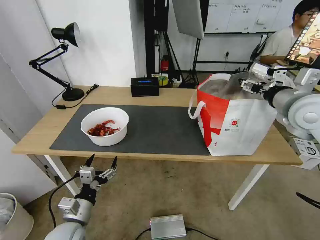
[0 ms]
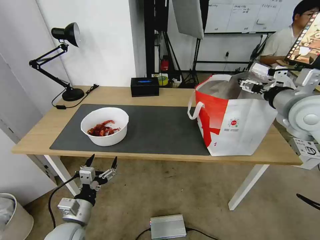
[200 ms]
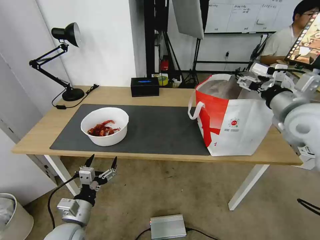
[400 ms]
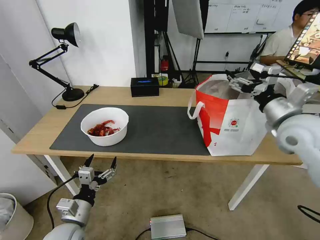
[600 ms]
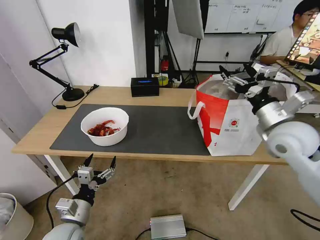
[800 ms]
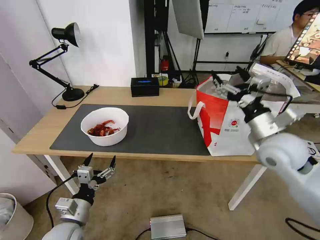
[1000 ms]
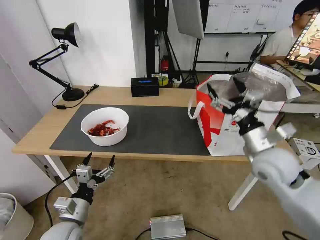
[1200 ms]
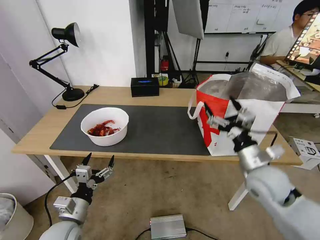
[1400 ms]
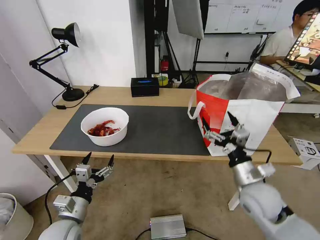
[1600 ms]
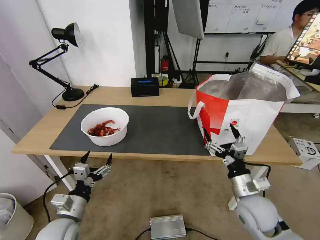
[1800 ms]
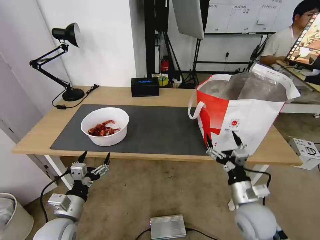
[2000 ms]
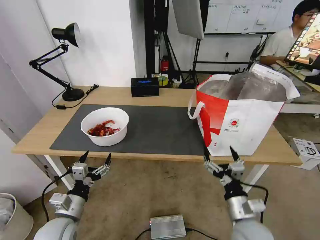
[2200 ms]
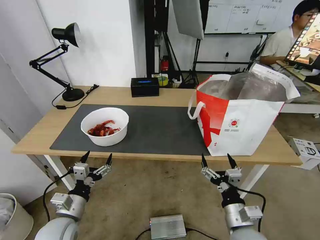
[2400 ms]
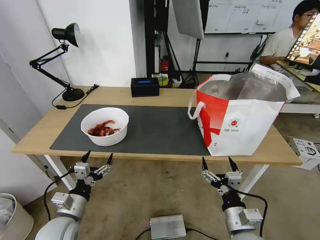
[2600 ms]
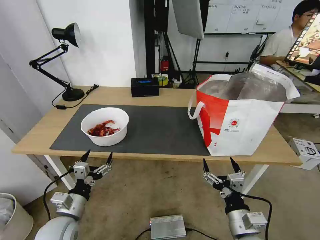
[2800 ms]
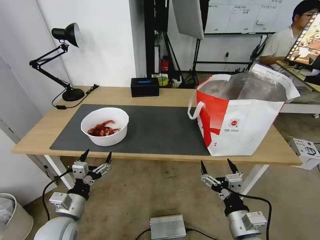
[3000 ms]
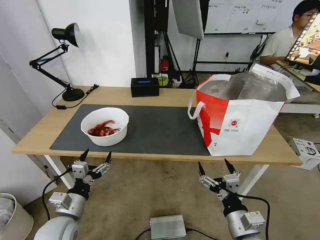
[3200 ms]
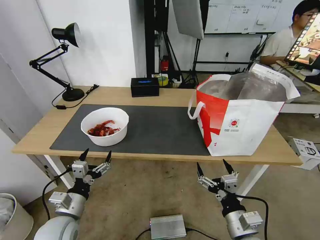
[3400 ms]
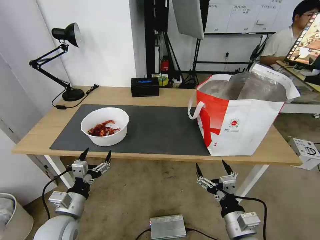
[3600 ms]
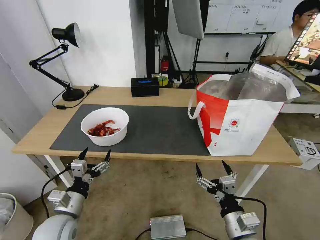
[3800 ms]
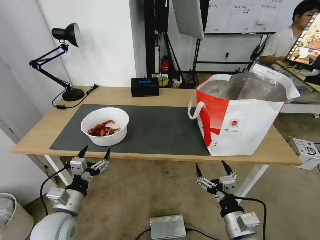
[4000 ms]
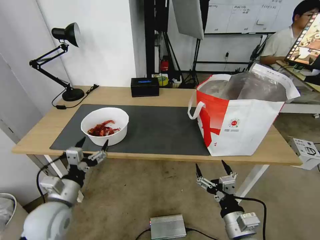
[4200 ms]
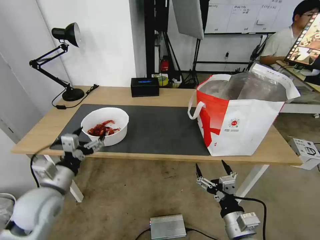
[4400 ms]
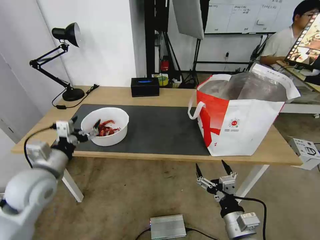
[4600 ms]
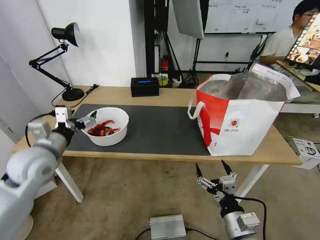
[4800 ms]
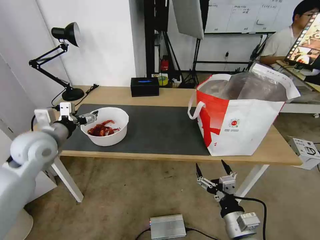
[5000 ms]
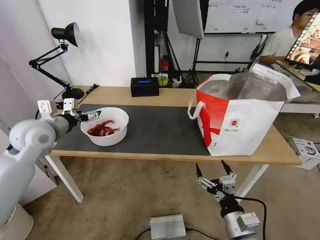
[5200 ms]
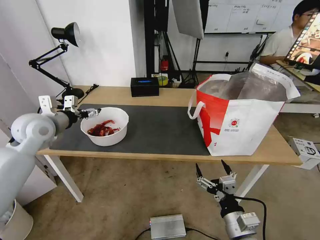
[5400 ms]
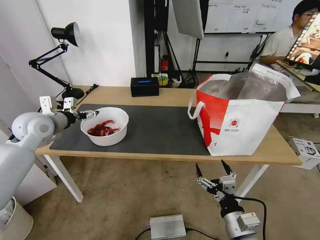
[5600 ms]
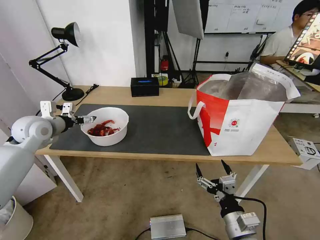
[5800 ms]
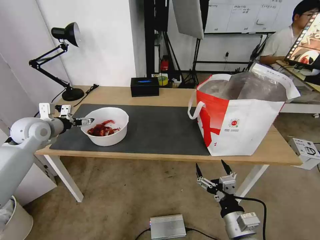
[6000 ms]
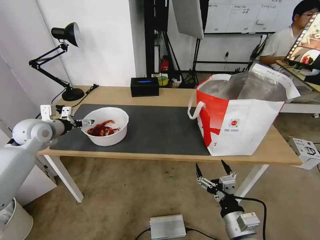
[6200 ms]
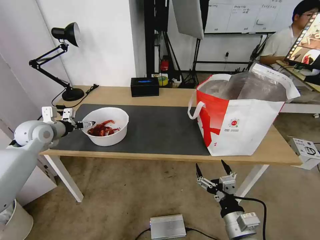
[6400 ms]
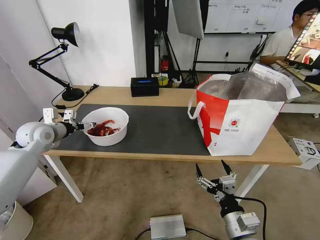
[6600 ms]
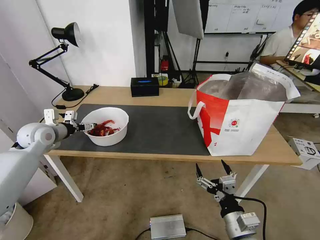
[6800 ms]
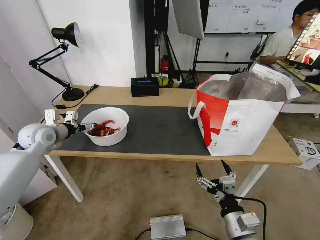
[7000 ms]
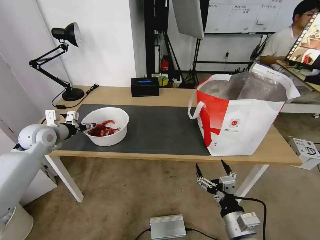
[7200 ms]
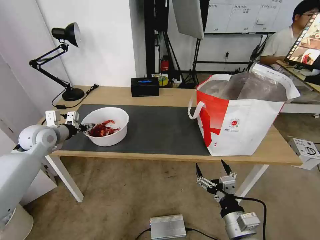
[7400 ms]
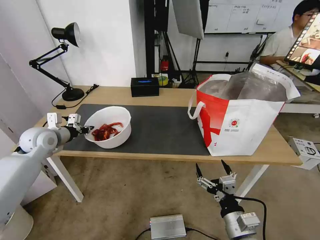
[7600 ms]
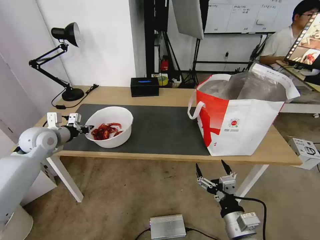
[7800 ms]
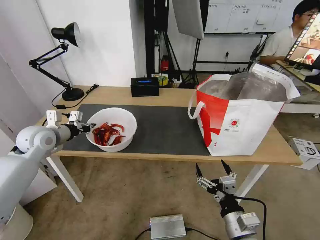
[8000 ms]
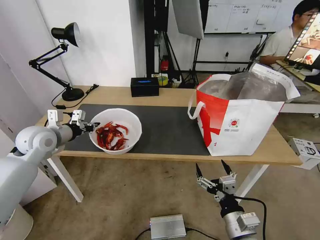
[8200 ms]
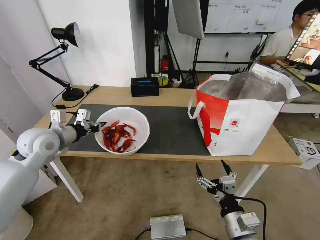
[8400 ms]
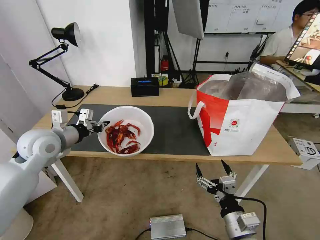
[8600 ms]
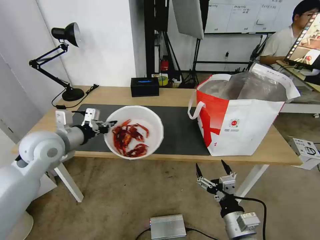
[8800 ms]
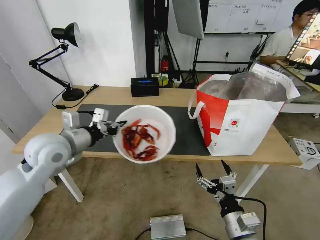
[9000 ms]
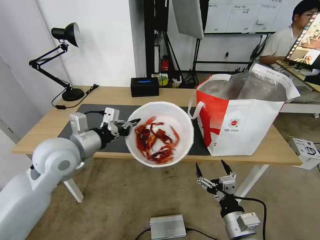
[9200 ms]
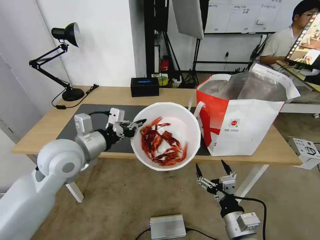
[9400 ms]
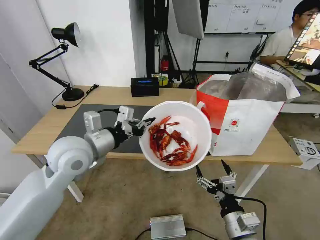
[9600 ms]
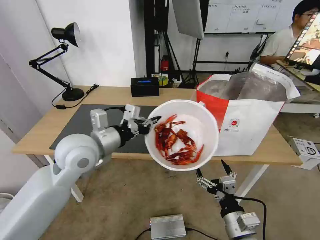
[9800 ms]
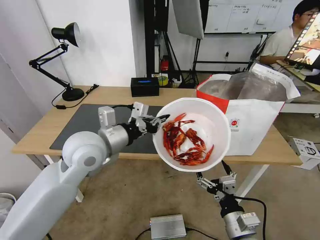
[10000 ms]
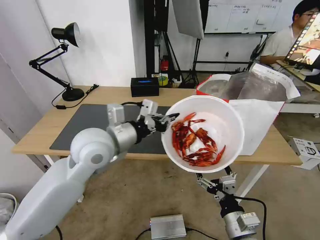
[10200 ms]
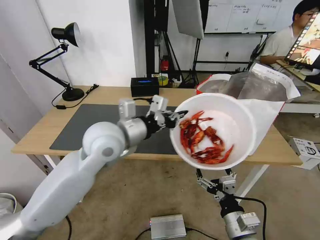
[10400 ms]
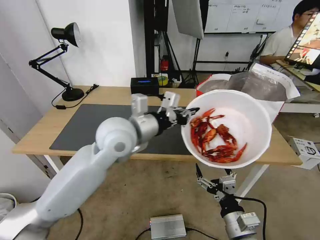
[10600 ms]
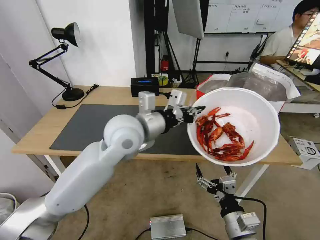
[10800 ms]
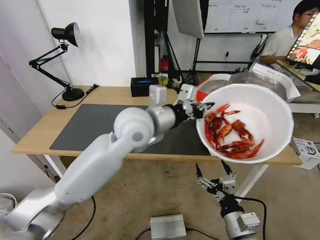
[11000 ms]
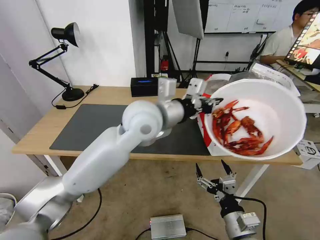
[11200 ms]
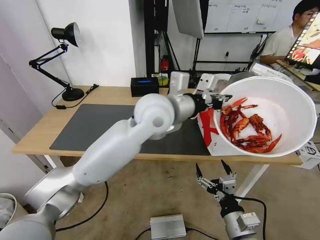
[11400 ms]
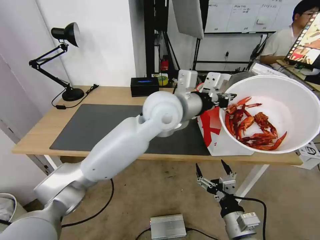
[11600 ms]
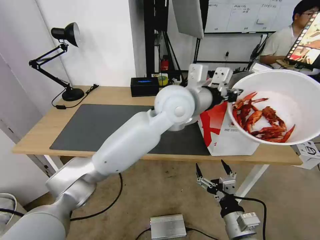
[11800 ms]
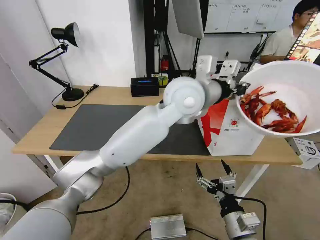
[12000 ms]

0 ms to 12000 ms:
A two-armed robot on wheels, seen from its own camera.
Task of the whole recording: Pick up the trash from the table and place it into the takeout bag.
0 ms to 1600 ms: The right gripper is displaced downward and backward by approximately 25 cm.
1600 ms to 3000 ms: The right gripper heads backward, covering approximately 10 cm.
3000 ms to 4400 ms: The left gripper heads upward, covering some 10 cm.
4400 ms to 6000 ms: The left gripper travels forward and to the left by some 25 cm.
6000 ms to 7600 ms: The left gripper closes.
7600 ms to 9000 ms: The left gripper travels to the right, backward and upward by some 15 cm.
9000 ms to 10400 ms: The left gripper goes some 15 cm to the right.
10400 ms to 12000 ms: The left gripper travels to the right and upward by approximately 20 cm.

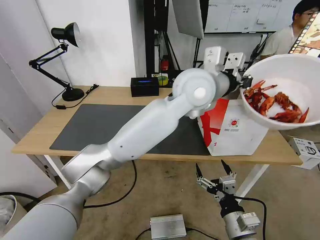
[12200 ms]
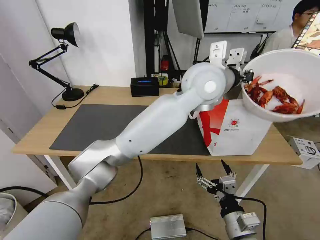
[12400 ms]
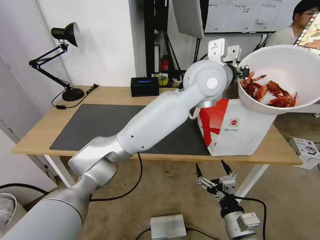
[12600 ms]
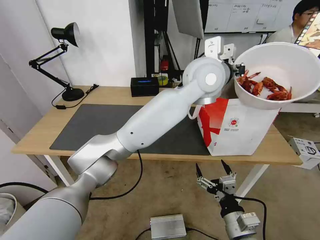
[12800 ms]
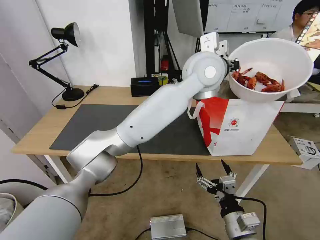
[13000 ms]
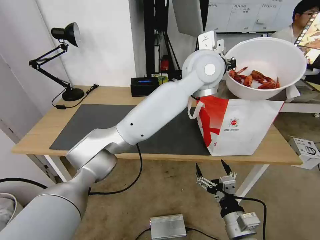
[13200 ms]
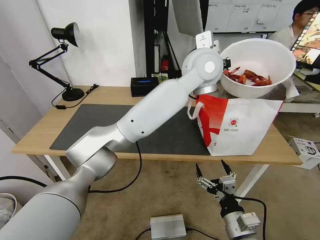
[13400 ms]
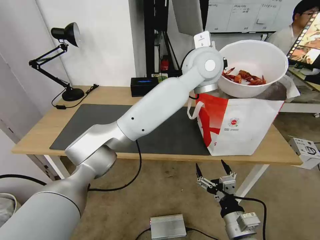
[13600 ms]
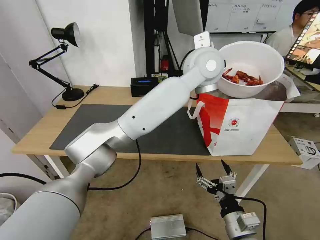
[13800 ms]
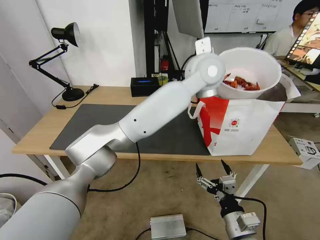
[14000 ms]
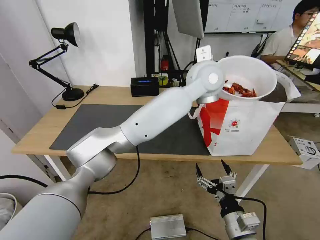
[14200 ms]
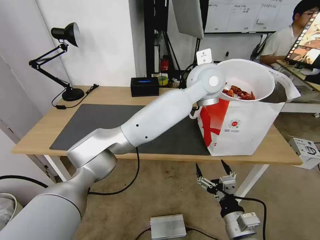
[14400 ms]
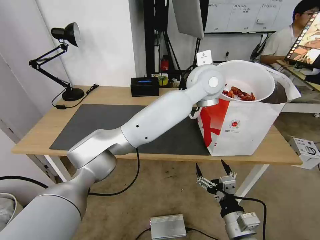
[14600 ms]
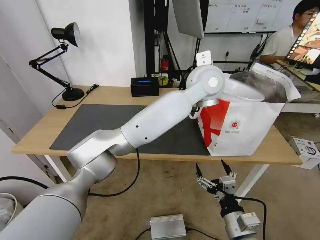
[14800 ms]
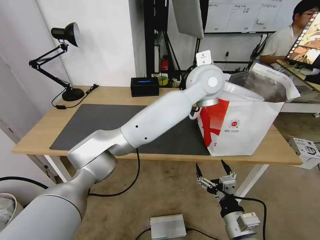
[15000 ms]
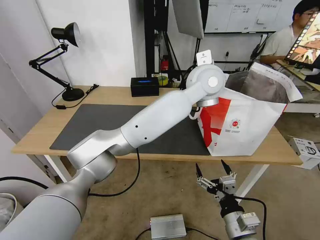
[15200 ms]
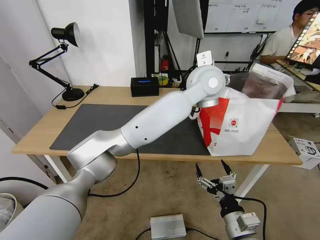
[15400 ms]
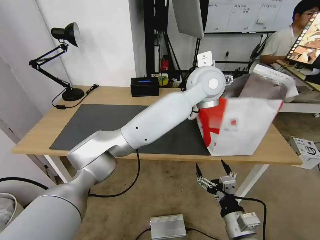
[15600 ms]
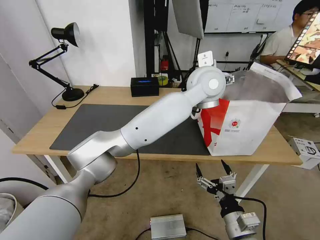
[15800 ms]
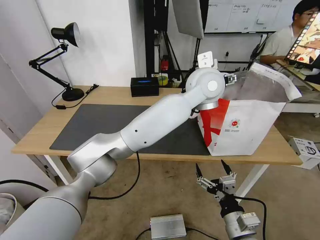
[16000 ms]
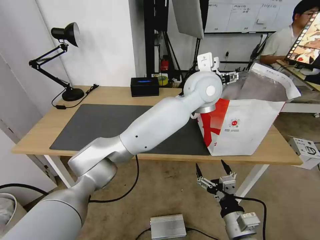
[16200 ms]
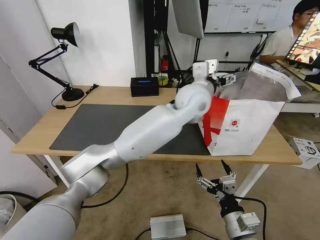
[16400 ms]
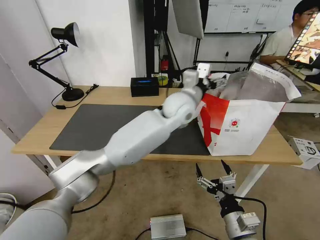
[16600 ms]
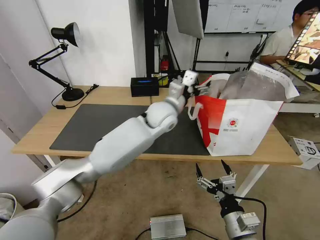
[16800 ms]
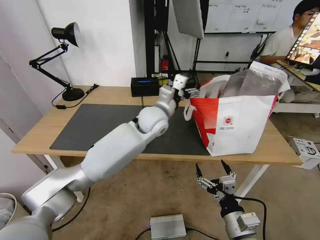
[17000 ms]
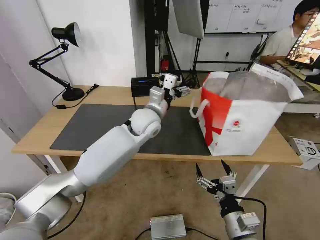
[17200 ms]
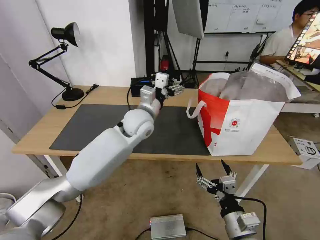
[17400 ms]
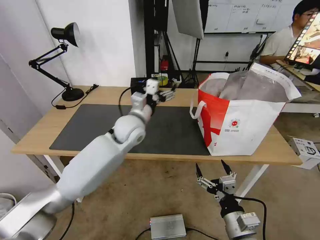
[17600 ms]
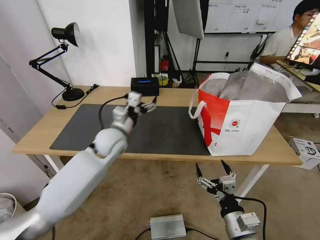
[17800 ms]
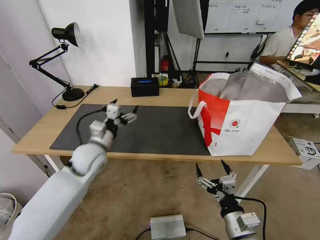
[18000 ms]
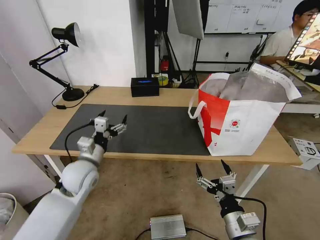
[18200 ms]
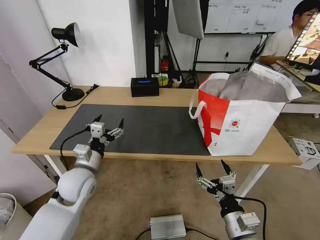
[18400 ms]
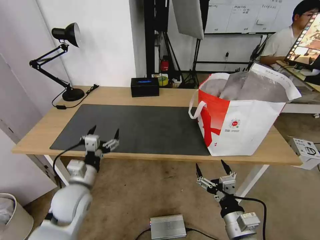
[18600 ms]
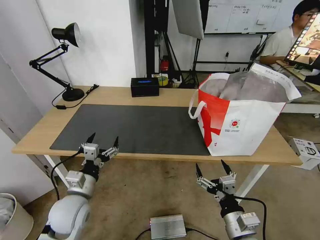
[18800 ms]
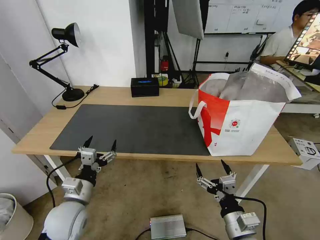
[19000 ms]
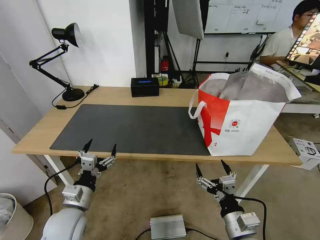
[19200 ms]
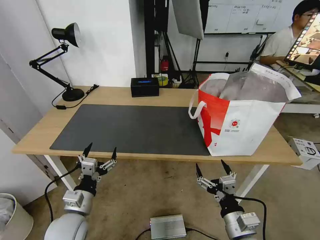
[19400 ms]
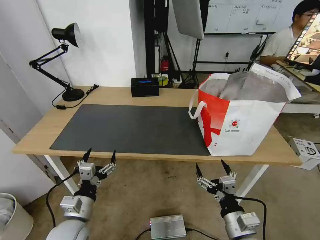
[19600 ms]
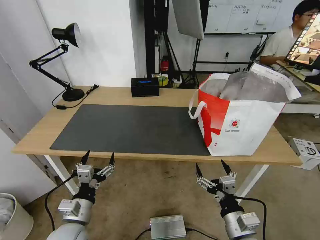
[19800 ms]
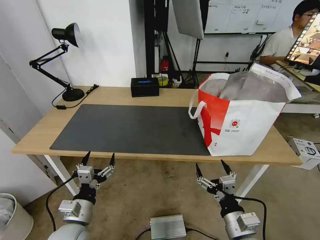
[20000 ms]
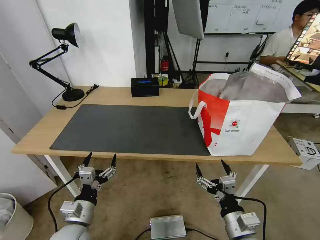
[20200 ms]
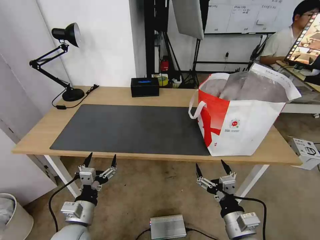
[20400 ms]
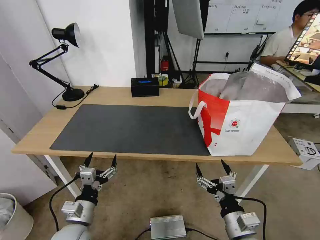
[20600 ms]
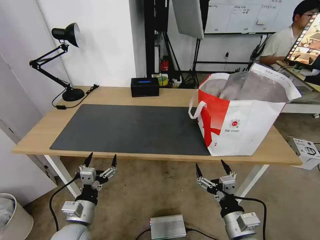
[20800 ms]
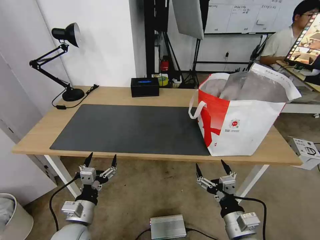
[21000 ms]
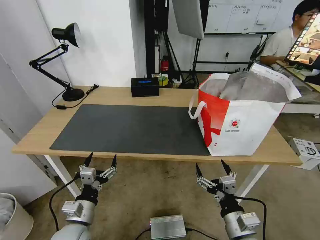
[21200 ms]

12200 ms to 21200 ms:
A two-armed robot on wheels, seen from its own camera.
Task of the whole recording: Pick up the trash from the table and place it into the takeout bag.
12200 ms to 13800 ms: The left gripper travels forward by roughly 5 cm.
13800 ms to 15200 ms: The left gripper opens its fingers.
15200 ms to 16600 ms: The left gripper heads downward and to the left, covering about 10 cm, and opens.
16600 ms to 18200 ms: The left gripper moves to the left, downward and backward, about 35 cm.
18200 ms to 19800 ms: The left gripper heads backward and downward, covering some 20 cm.
19800 ms to 21200 ms: The grippers stay close to where they were, moving slightly.

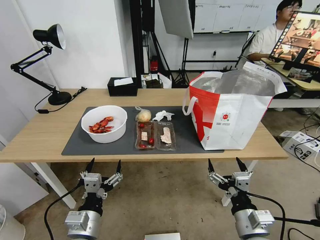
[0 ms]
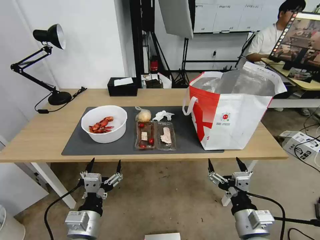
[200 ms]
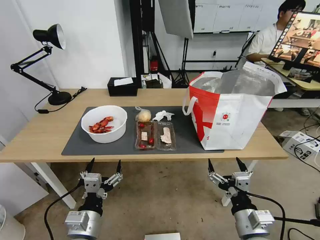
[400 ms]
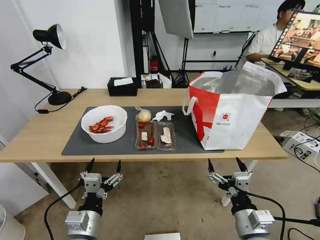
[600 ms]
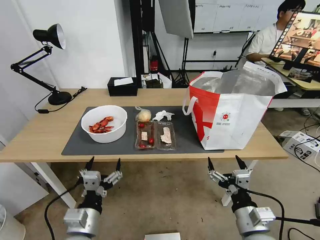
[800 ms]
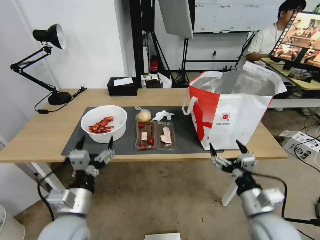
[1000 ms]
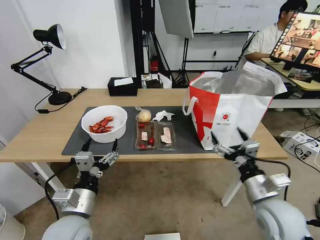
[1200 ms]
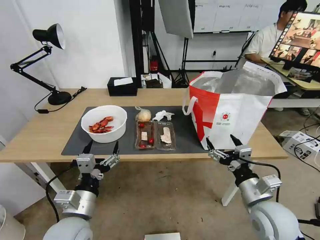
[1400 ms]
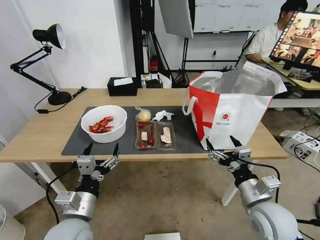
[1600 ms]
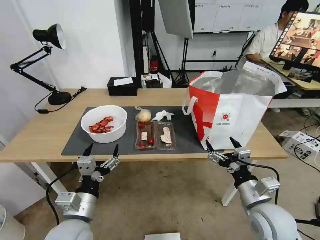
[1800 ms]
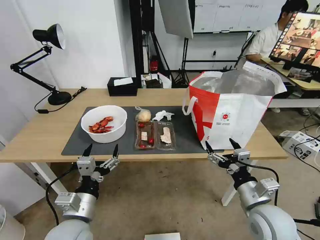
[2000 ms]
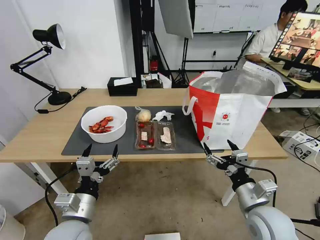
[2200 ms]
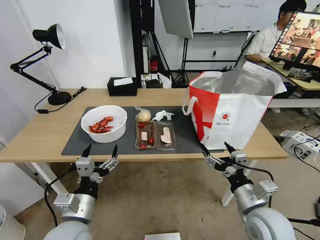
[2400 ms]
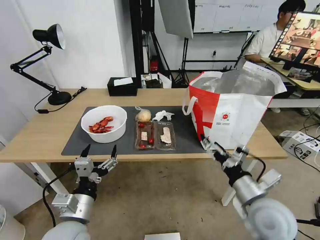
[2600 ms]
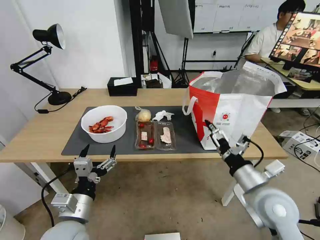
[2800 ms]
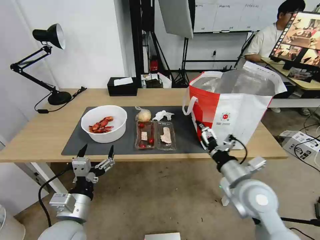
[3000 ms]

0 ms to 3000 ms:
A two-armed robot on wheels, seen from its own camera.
Task of the whole recording: Pick up the trash from the table and place it into the takeout bag.
1600 ms to 3000 ms: The right gripper shifts by roughly 5 cm.
